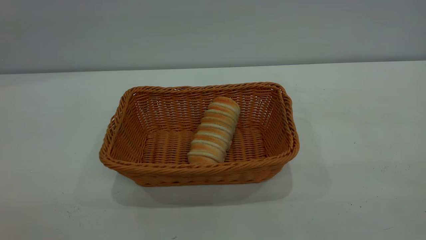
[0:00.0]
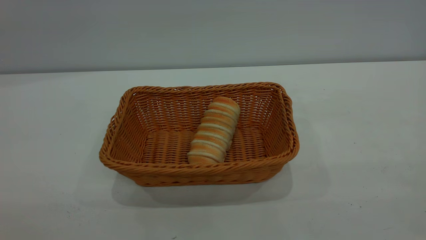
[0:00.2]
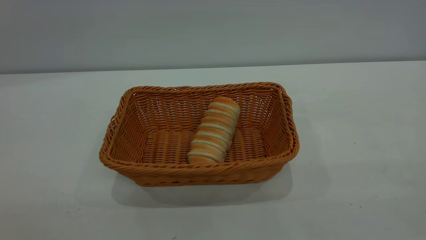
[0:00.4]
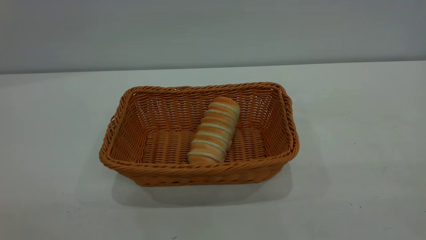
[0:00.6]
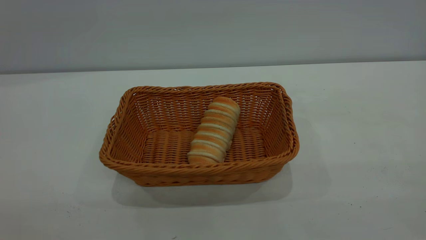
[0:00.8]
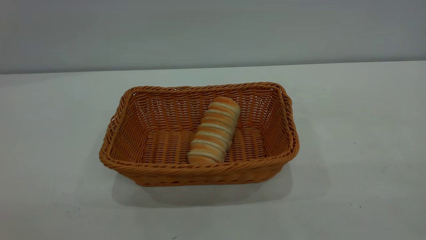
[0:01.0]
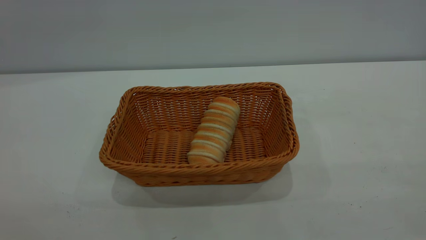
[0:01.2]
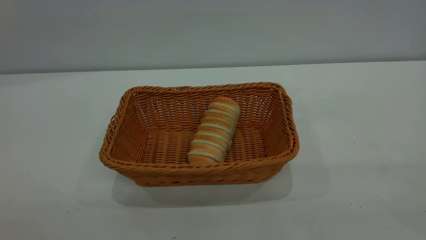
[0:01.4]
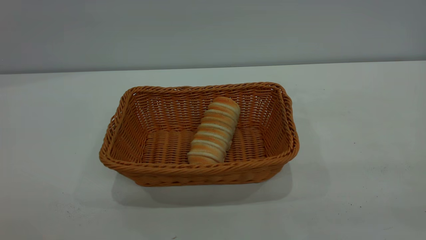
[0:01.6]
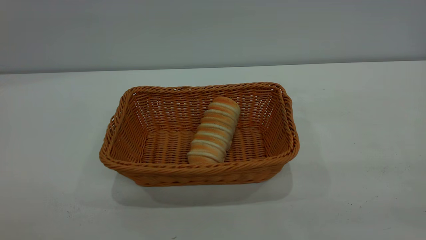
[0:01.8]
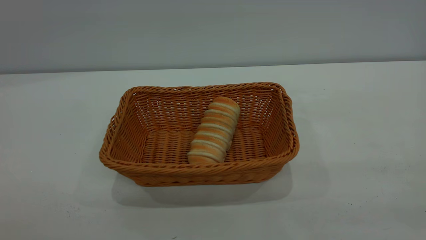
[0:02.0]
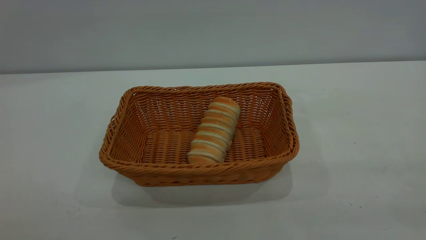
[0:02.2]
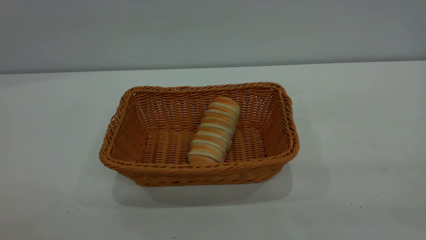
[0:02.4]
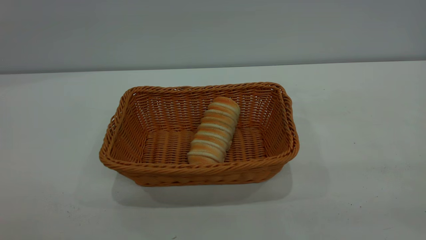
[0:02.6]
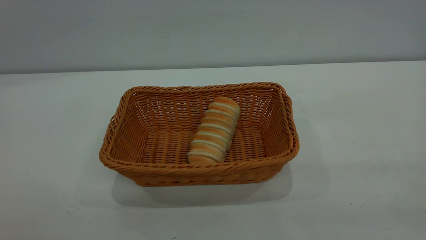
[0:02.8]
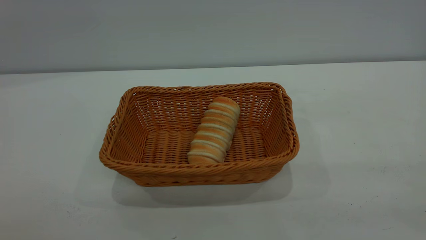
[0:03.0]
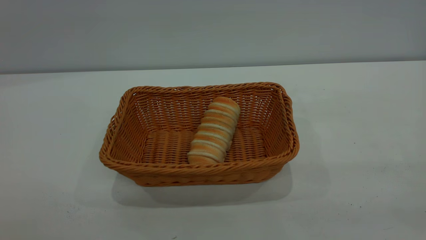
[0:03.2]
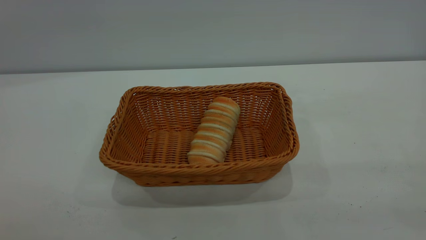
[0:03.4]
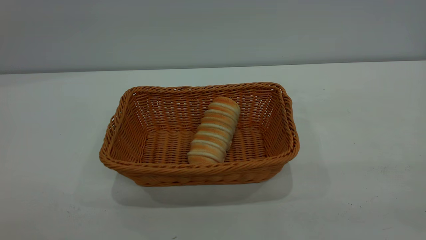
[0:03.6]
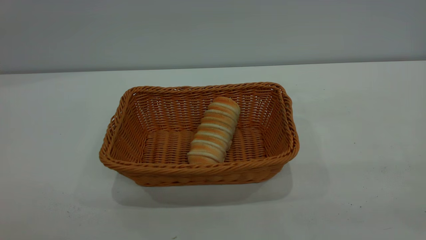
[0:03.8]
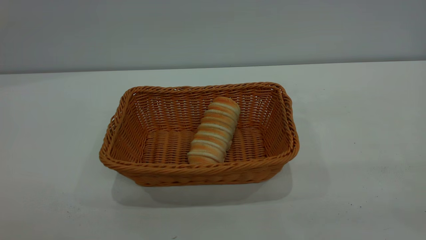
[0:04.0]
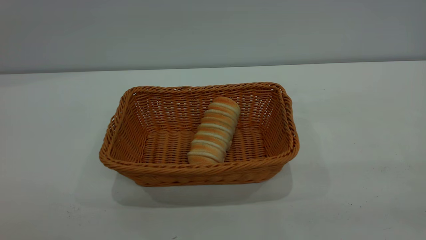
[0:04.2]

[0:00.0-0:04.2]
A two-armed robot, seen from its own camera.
Task of the whole recording: One hand grasps the yellow basket and places it in the middle of the table, while the other hand picks up the long bread and puts it into the yellow basket.
0:02.8 to 0:04.2: The two grippers keep their place.
